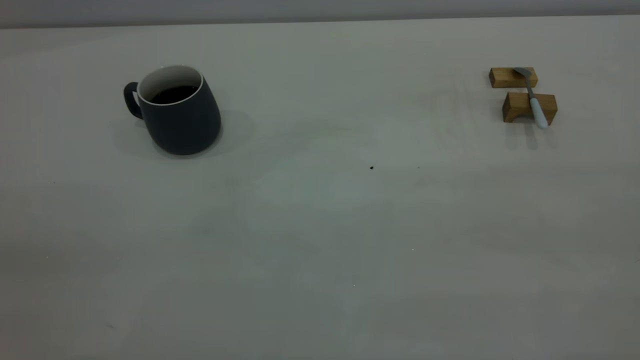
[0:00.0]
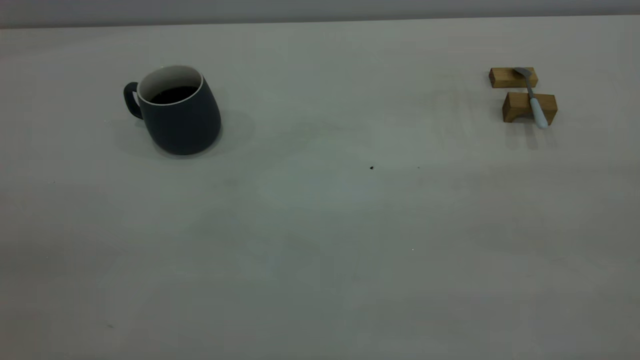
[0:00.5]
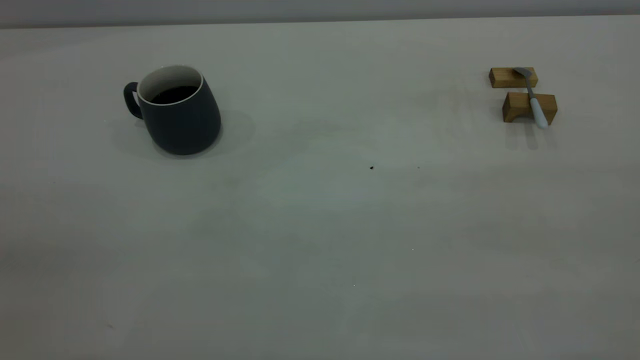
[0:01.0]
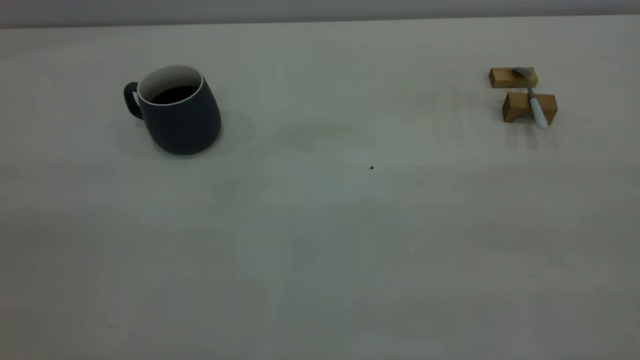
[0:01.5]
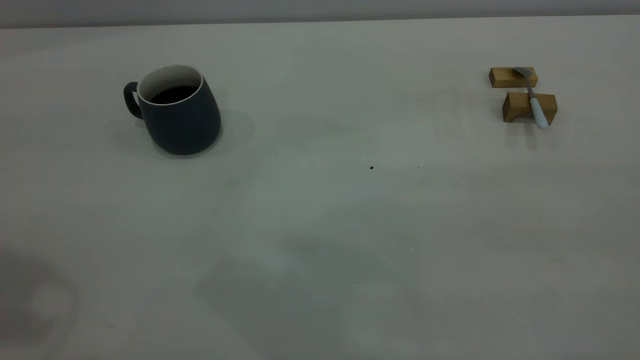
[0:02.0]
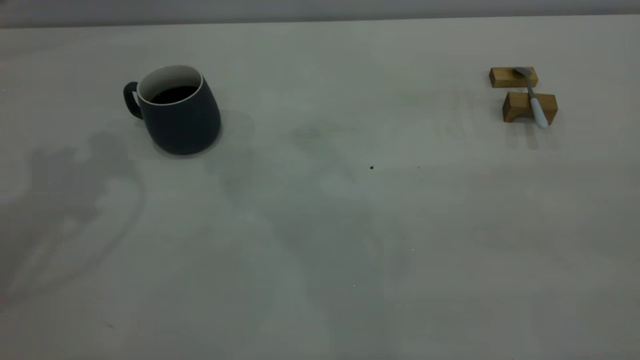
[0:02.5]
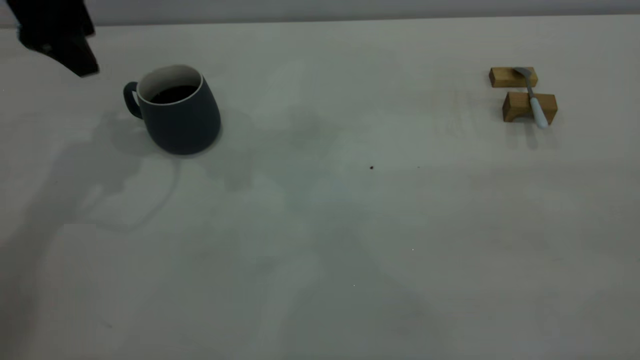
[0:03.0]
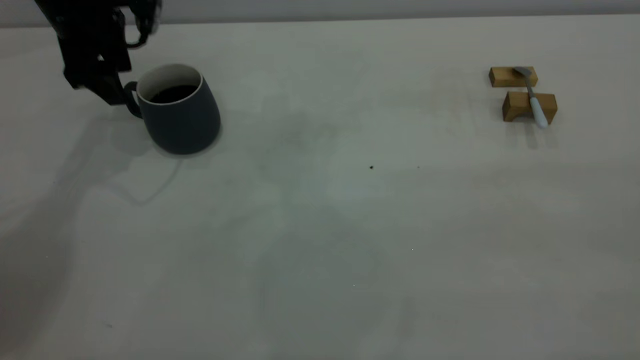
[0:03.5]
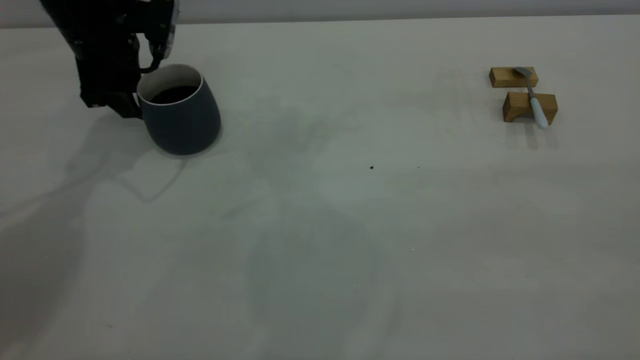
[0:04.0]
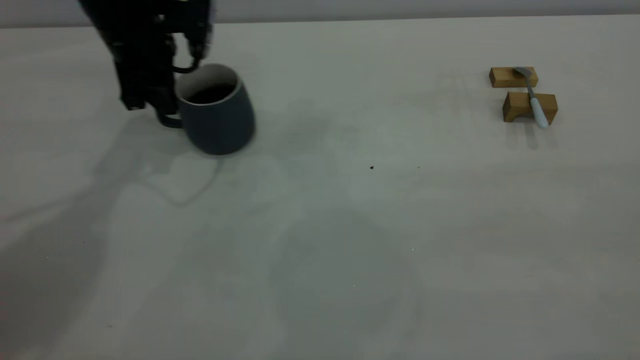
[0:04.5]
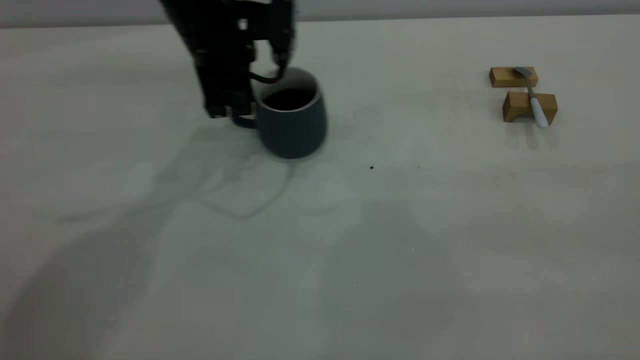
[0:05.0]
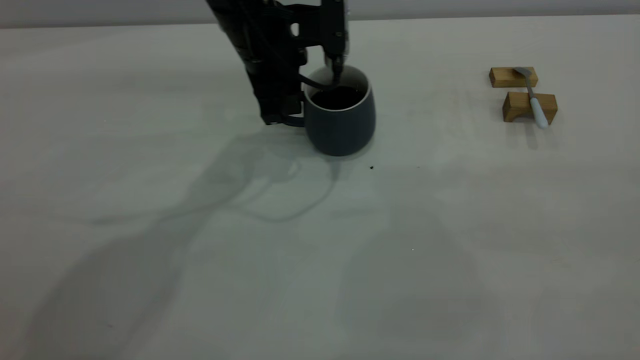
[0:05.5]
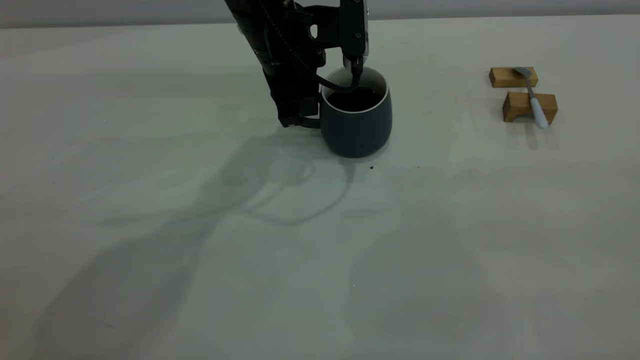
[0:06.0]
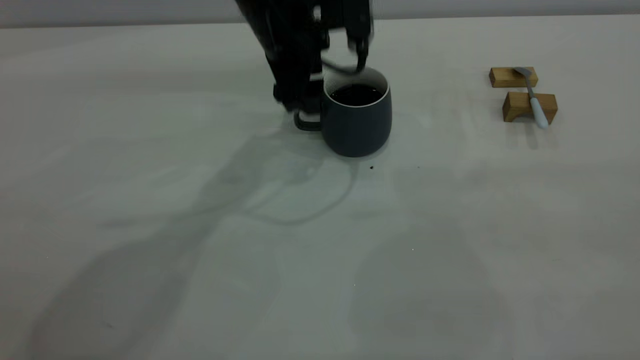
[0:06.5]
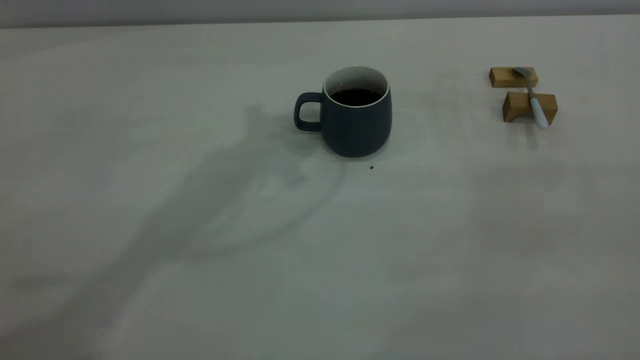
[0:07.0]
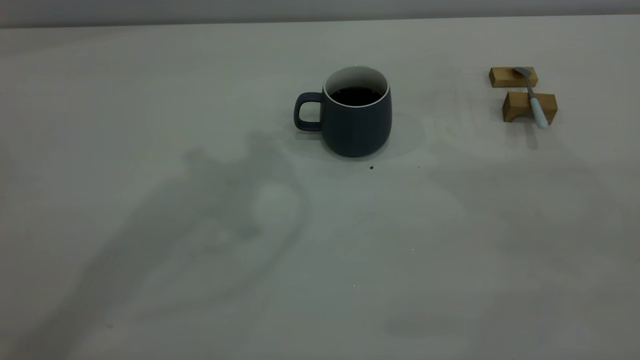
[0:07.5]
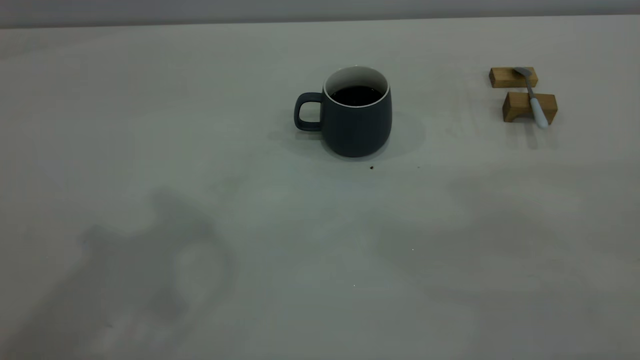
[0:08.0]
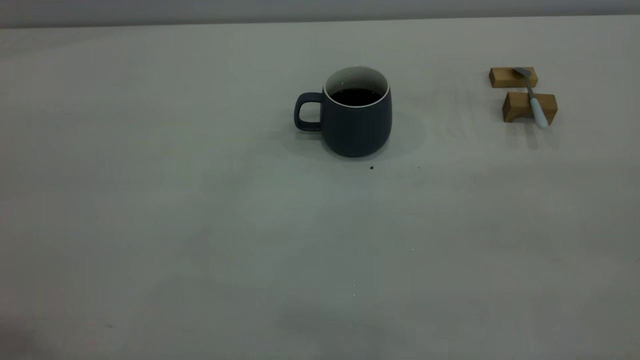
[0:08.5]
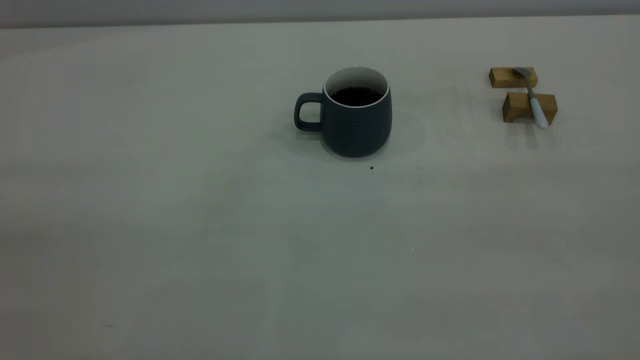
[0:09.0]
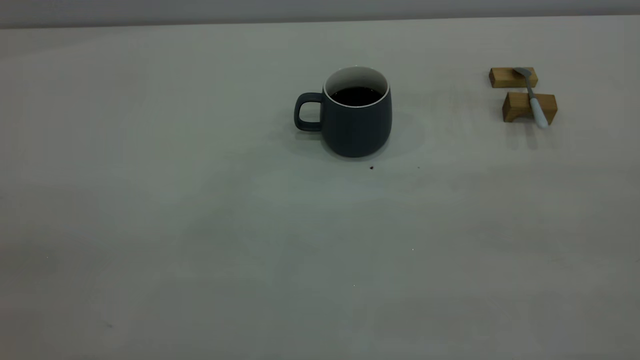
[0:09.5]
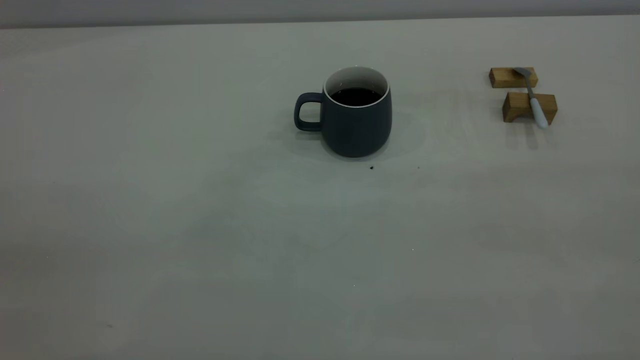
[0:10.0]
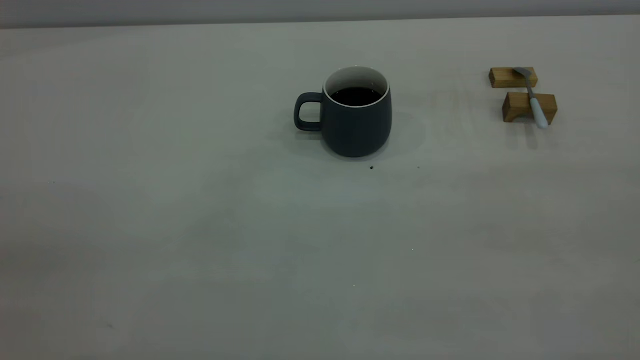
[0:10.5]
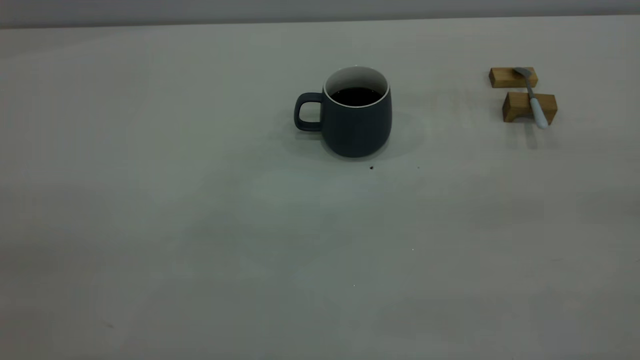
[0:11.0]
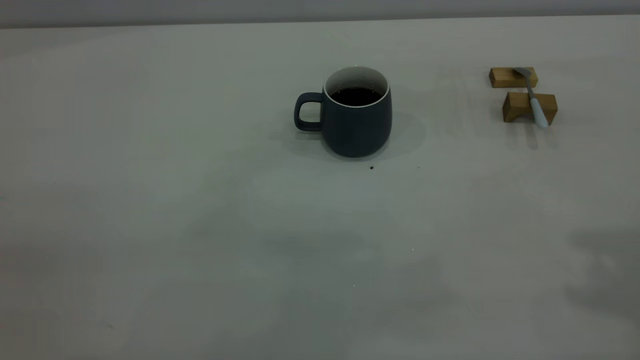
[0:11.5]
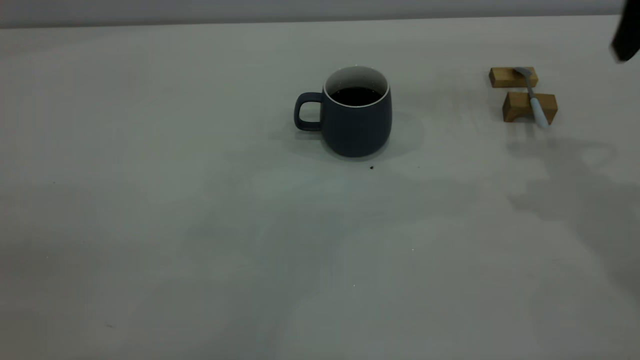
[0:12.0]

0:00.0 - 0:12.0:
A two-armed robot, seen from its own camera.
Step, 0:00.0 - 0:06.5: Move the cup with coffee to the center of view.
0:02.0 - 0:04.0: The left gripper moves forward and downward, about 35 cm, and opens and closes again.
0:04.0 - 0:06.0: The left gripper goes approximately 20 cm to the right, and closes.
0:06.0 - 0:08.0: The left gripper is displaced upward and backward by some 35 cm, and opens and closes again.

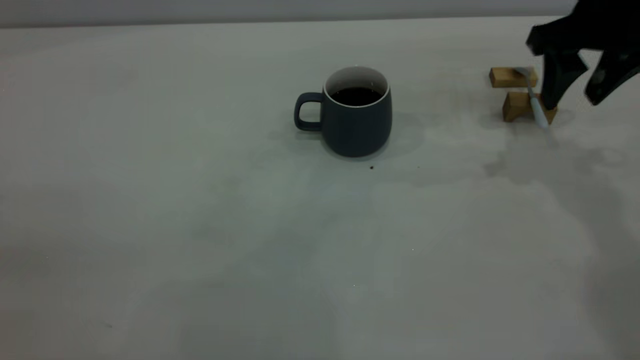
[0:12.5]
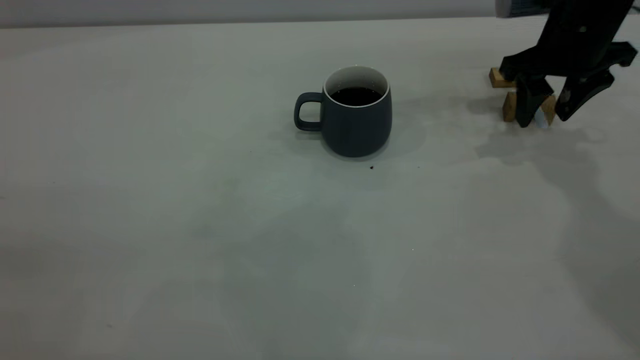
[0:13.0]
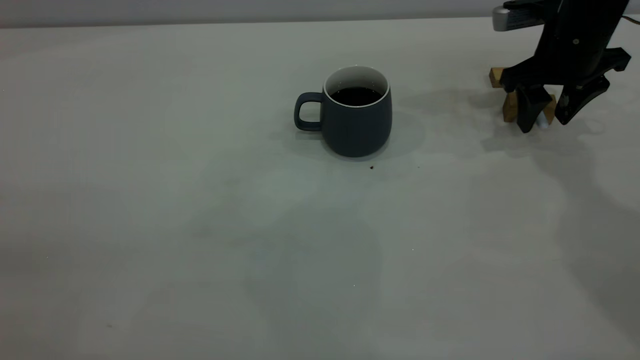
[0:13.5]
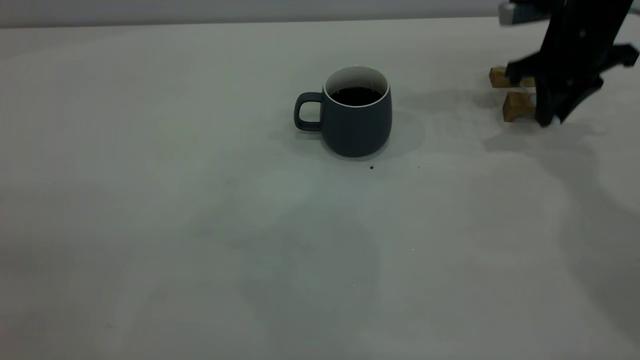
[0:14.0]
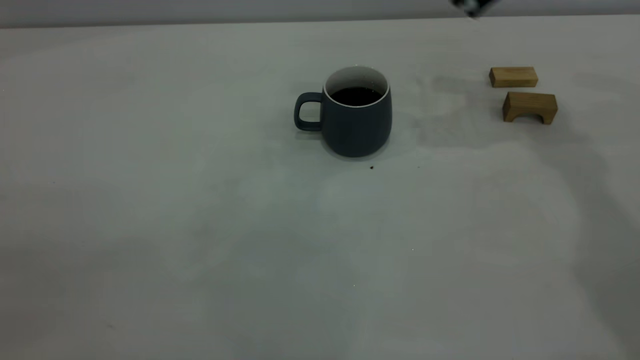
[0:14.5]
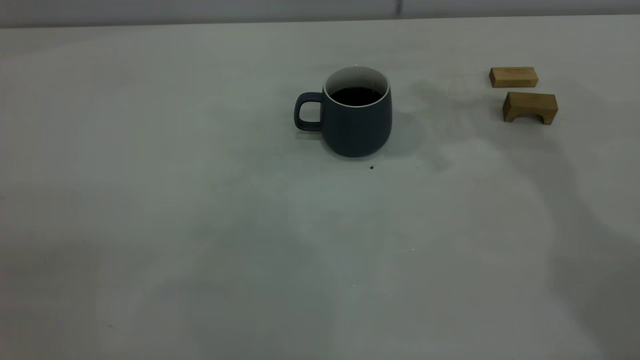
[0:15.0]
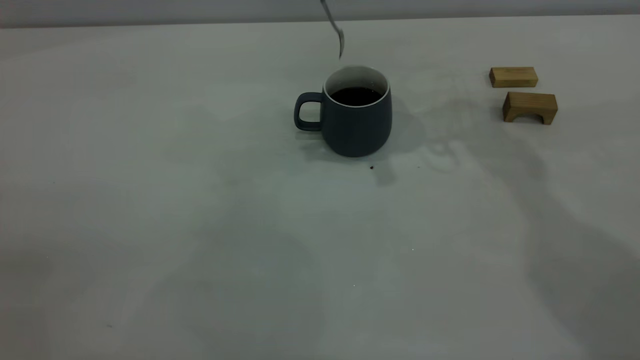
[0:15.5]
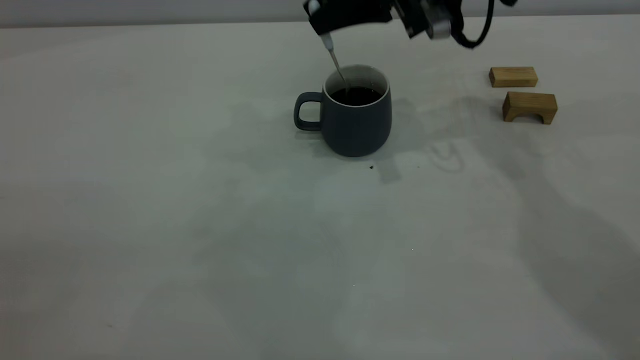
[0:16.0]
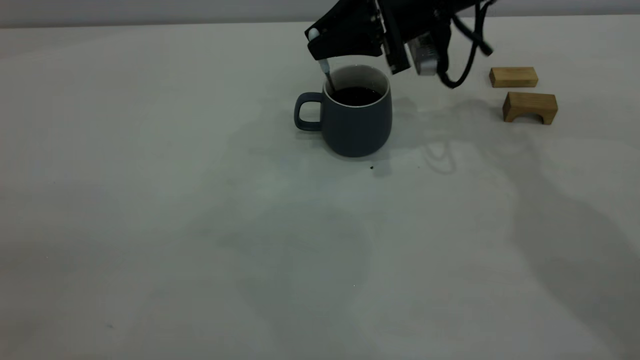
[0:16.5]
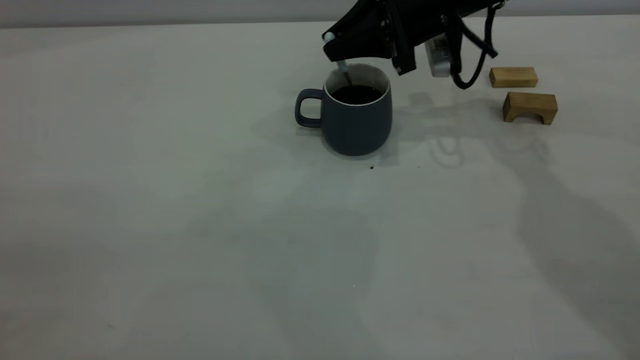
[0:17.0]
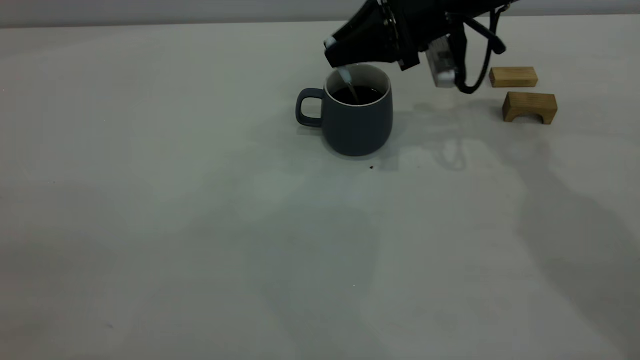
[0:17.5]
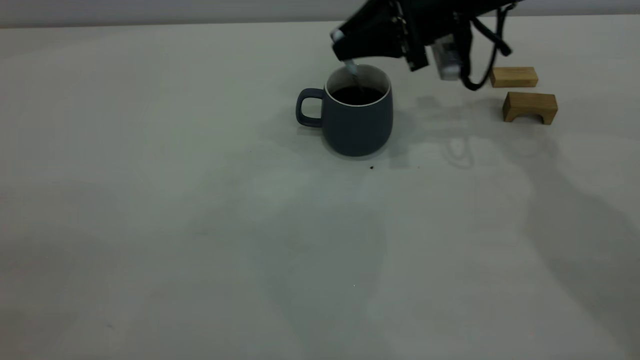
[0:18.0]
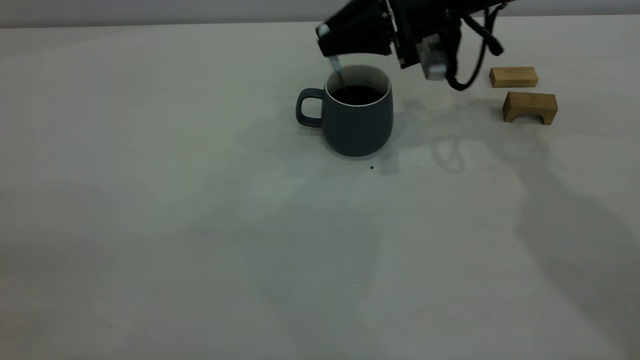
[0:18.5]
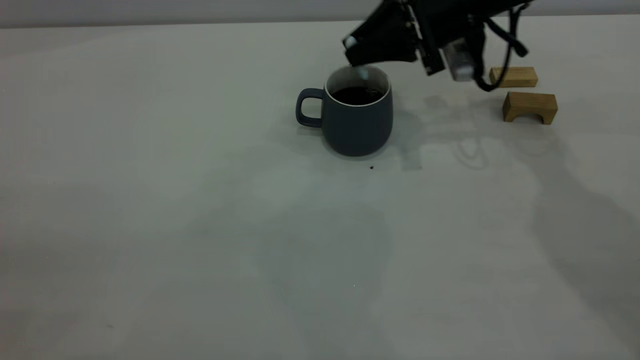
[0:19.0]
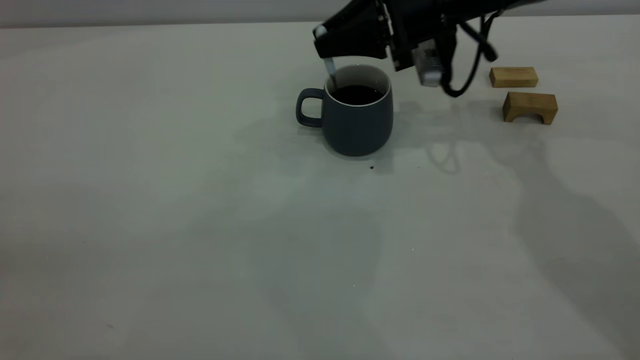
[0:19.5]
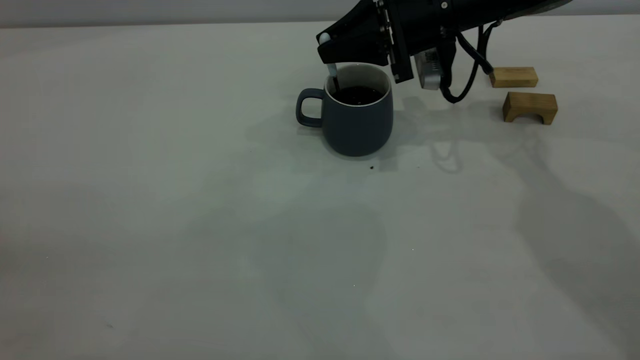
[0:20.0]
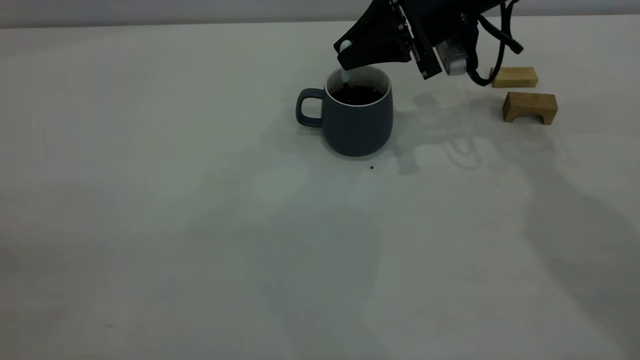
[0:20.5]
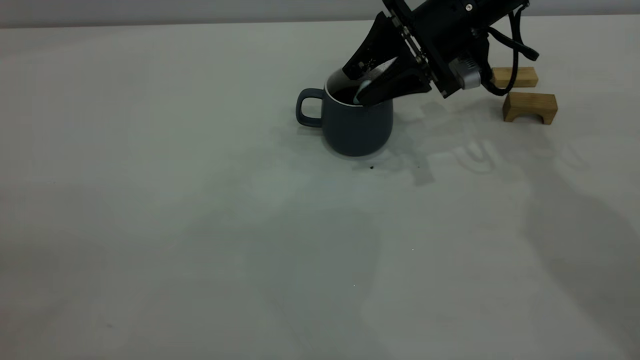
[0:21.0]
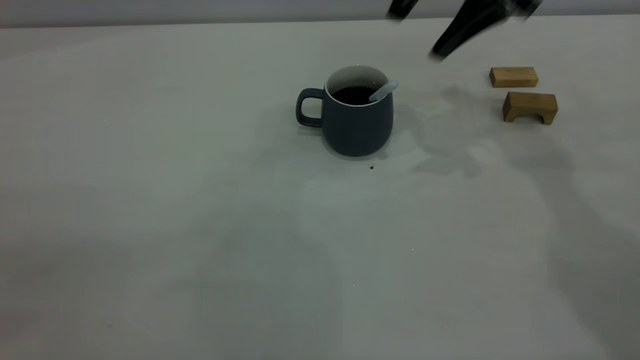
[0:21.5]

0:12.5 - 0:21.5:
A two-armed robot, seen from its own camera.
Step, 0:14.5 - 0:21.0: Stir the coffee in the cup.
0:12.5 - 0:14.5: The right gripper travels upward, forward and to the left by approximately 10 cm, and closes up.
0:14.5 - 0:17.0: The right gripper shifts about 15 cm downward and to the left.
0:17.0 - 0:19.5: There are only small adjustments of the grippers.
0:19.5 - 0:21.5: The right gripper shifts some 10 cm upward, and opens its fingers.
